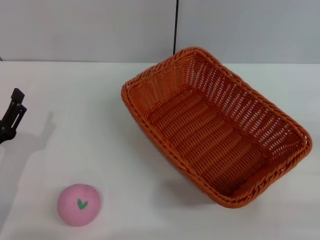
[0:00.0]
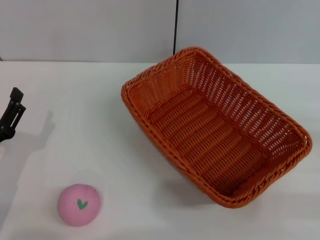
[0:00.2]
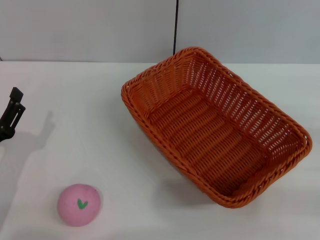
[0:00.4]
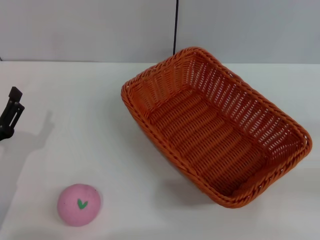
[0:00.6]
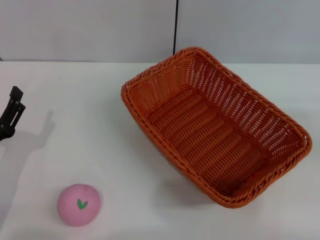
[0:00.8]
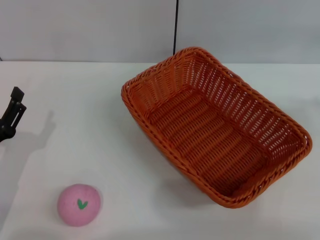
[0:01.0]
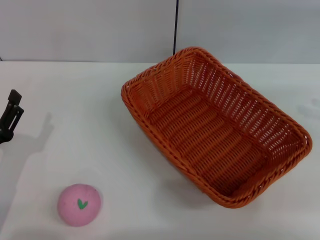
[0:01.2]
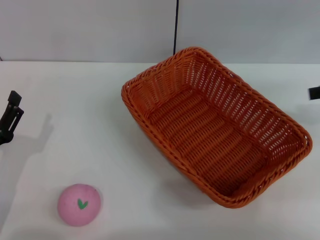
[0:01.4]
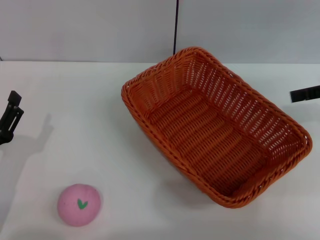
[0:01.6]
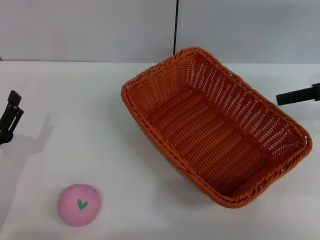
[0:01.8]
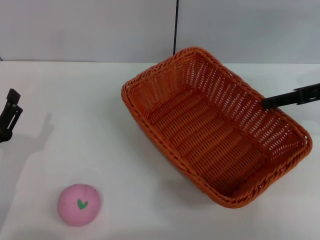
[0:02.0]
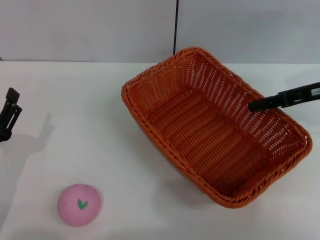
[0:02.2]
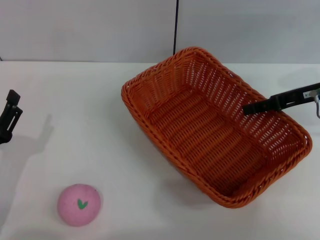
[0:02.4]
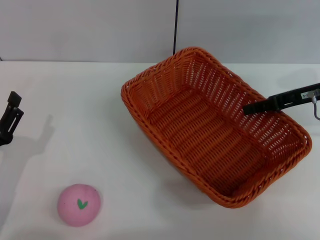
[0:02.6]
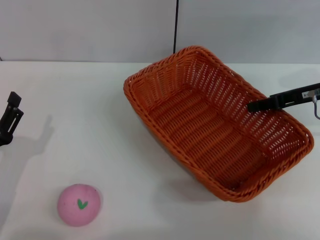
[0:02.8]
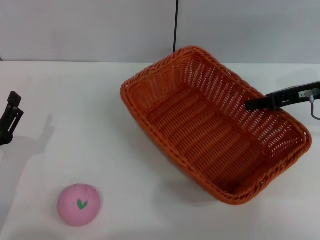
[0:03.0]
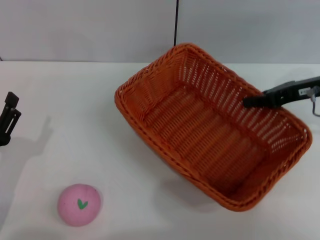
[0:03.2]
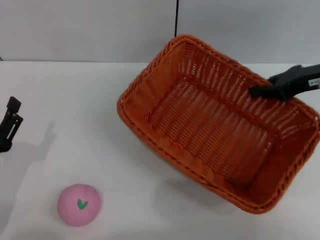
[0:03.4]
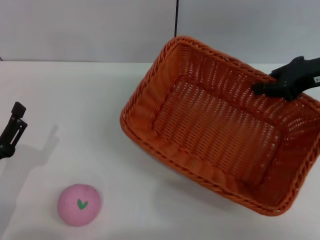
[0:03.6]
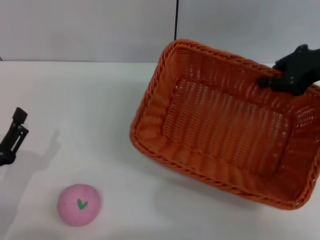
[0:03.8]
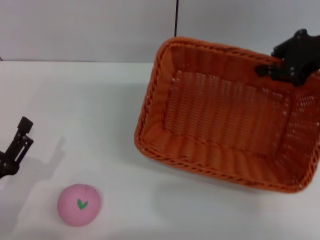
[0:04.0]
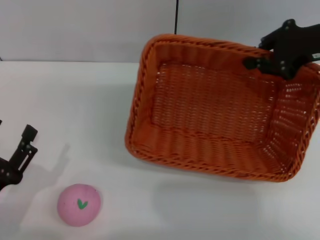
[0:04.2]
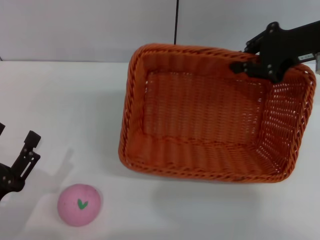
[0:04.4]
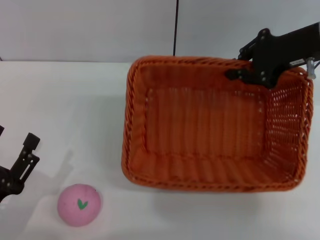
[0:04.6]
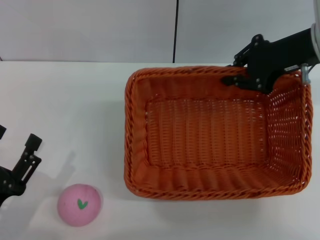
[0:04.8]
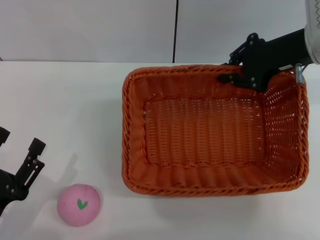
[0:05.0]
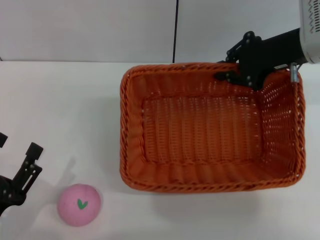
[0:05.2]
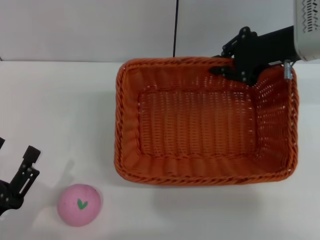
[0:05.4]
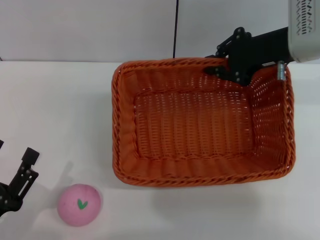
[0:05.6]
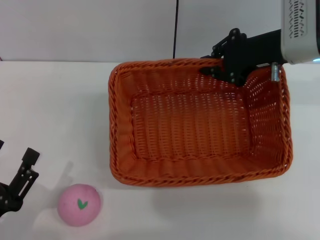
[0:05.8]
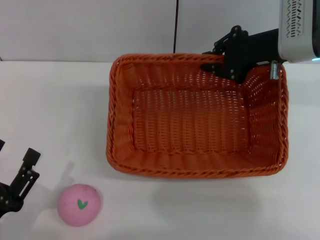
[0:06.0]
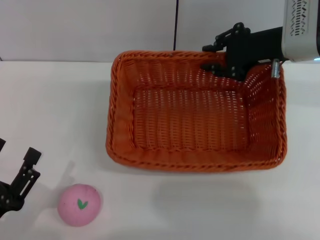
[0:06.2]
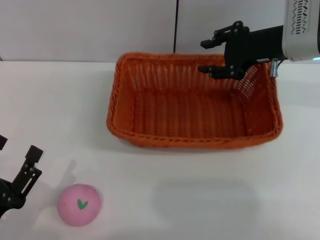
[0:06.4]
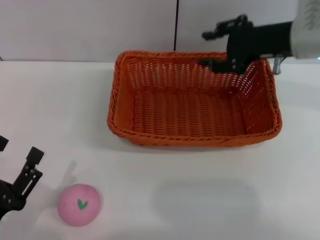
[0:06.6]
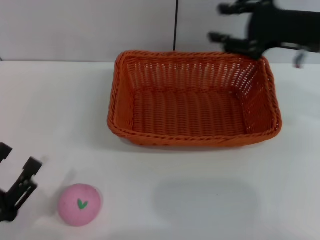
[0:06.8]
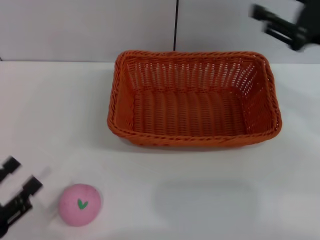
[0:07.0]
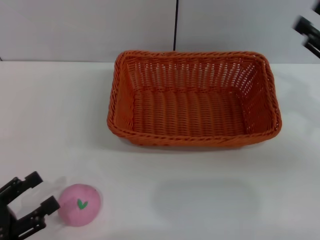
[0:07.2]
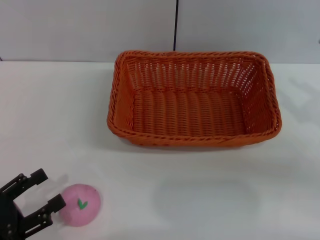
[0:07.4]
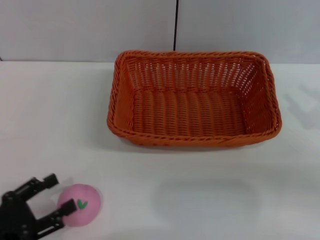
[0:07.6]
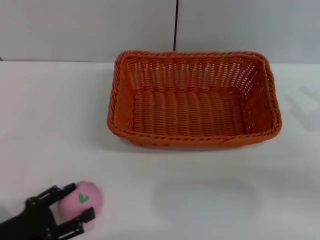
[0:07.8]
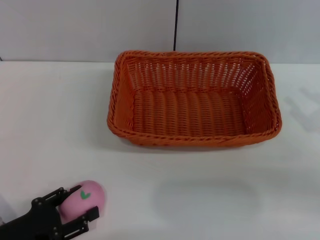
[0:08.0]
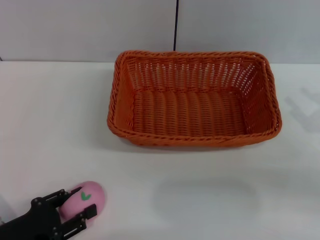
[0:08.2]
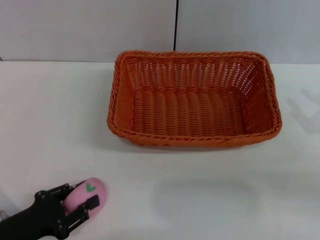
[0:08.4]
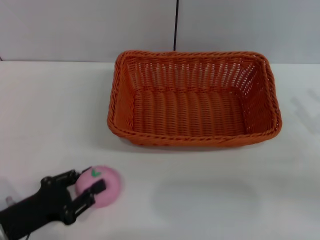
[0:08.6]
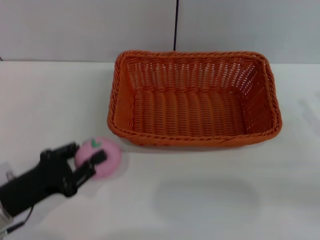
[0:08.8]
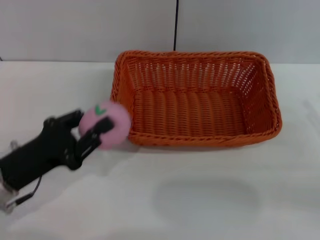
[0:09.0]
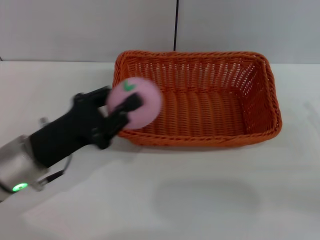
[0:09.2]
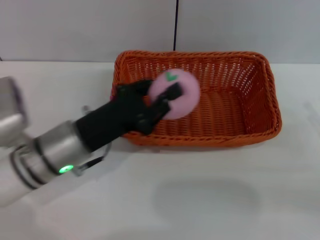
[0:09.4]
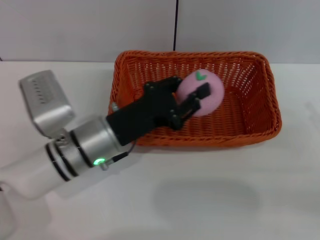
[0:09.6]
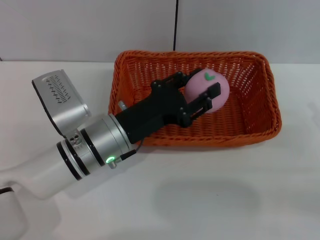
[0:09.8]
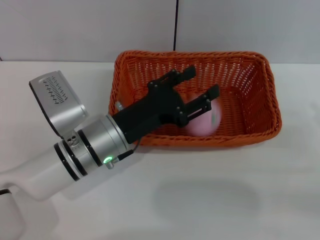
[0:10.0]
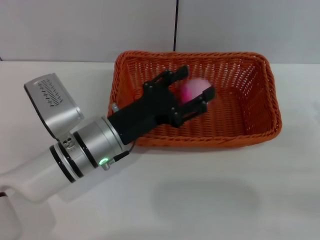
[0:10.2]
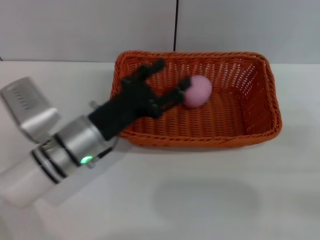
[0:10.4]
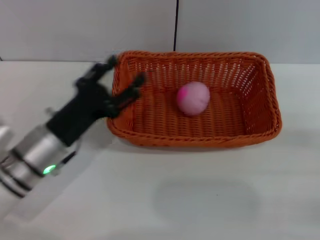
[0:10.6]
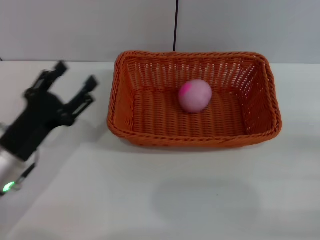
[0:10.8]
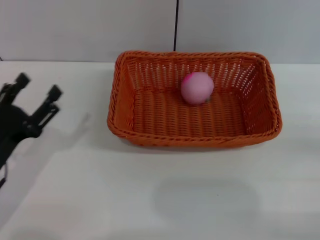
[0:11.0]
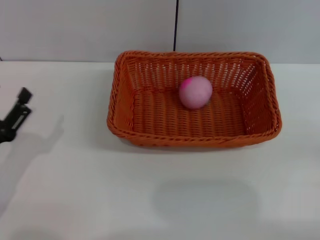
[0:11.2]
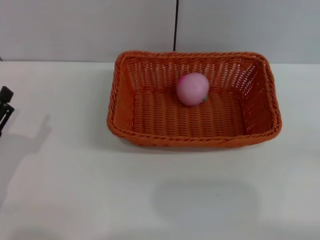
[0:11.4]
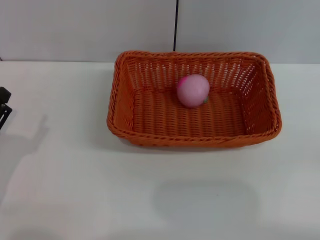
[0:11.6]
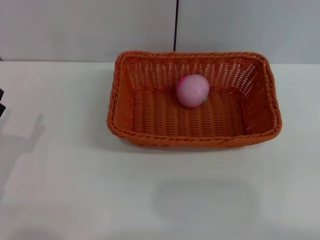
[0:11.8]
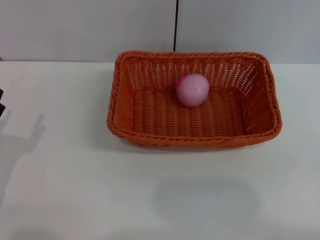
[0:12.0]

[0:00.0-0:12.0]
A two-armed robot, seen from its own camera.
Step, 0:00.0 to 0:03.6: Pick up the light basket with the right gripper.
Step, 0:04.0 to 0:06.6: Place the light basket in the center of view with the right gripper.
Step, 0:06.8 to 0:09.0: Pick up the peach with the left gripper.
Step, 0:09.2 to 0:10.2: Place the peach into the basket with the left gripper.
0:00.0 to 0:01.6: The right gripper goes some 20 cm forward and upward.
0:01.6 to 0:03.0: The right gripper heads to the left and downward, covering approximately 10 cm, and closes its fingers.
0:03.0 to 0:04.4: The left gripper heads backward, covering some 5 cm. The right gripper travels upward by roughly 10 cm.
0:04.4 to 0:06.0: The right gripper ends up approximately 5 cm from where it was.
0:06.0 to 0:07.6: The right gripper moves backward, to the right and downward, some 25 cm, and opens up. The left gripper shifts by approximately 5 cm.
0:07.6 to 0:09.0: The left gripper is displaced forward and to the right by some 10 cm, and closes up.
0:09.0 to 0:10.4: The left gripper is displaced to the right and forward by approximately 15 cm, and opens up.
0:10.4 to 0:12.0: The right gripper travels backward by roughly 5 cm, and opens its fingers. The left gripper is displaced to the left and backward by about 20 cm.

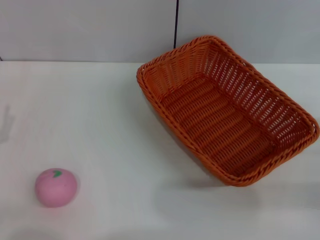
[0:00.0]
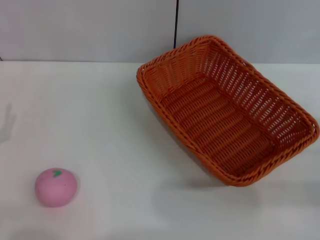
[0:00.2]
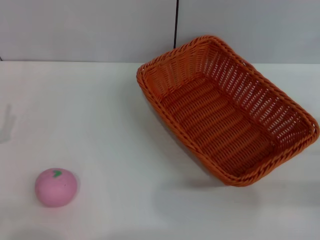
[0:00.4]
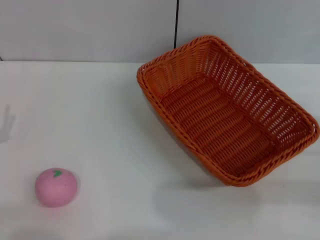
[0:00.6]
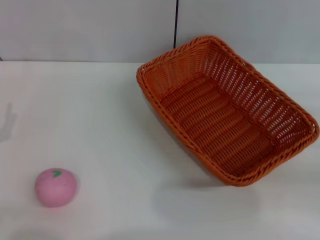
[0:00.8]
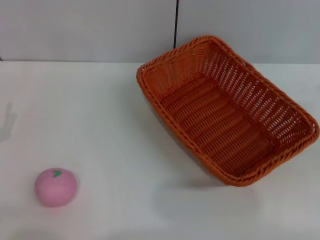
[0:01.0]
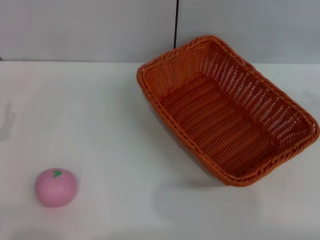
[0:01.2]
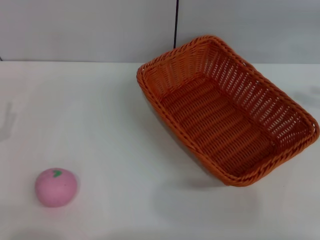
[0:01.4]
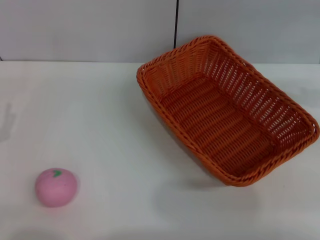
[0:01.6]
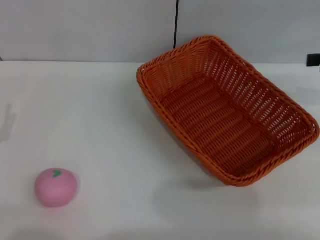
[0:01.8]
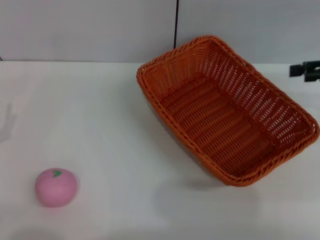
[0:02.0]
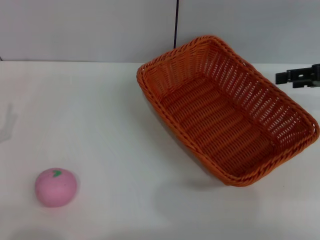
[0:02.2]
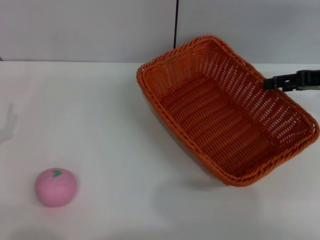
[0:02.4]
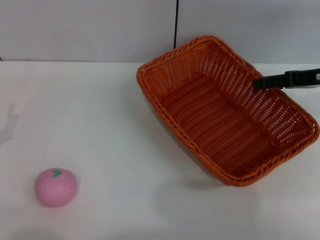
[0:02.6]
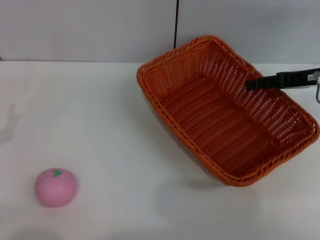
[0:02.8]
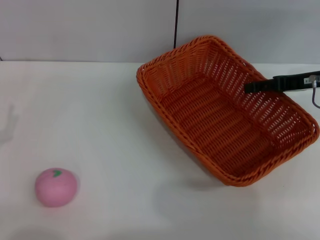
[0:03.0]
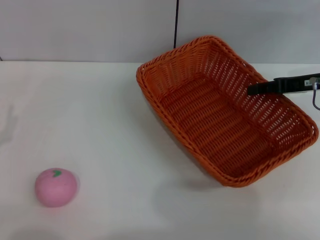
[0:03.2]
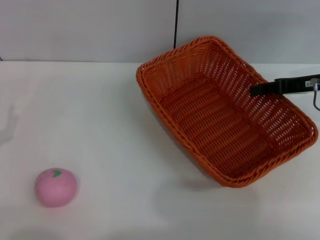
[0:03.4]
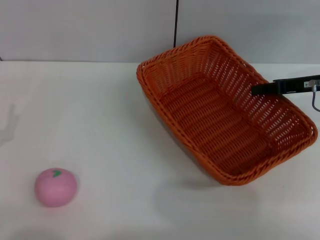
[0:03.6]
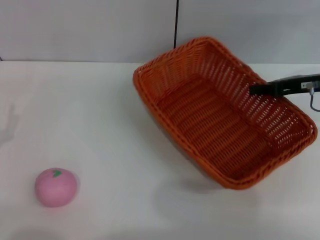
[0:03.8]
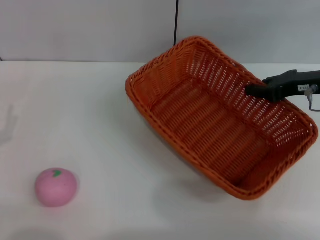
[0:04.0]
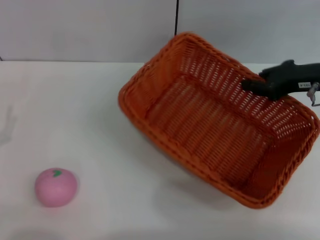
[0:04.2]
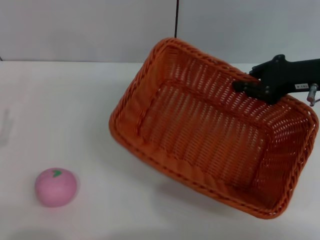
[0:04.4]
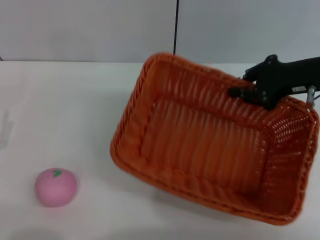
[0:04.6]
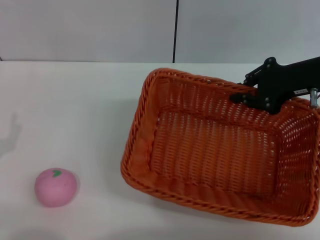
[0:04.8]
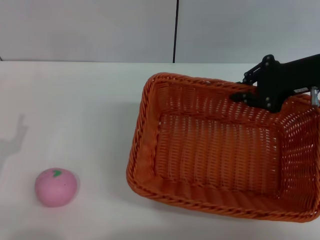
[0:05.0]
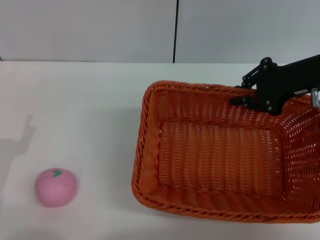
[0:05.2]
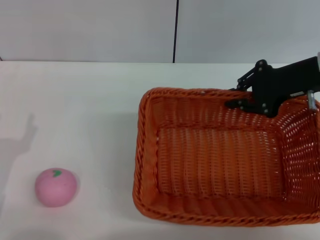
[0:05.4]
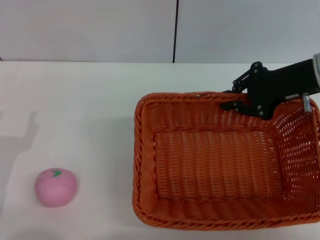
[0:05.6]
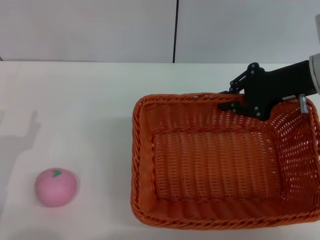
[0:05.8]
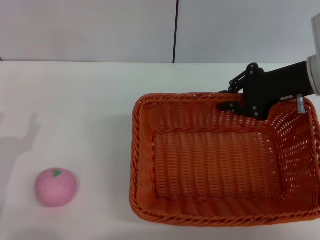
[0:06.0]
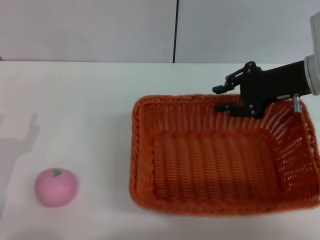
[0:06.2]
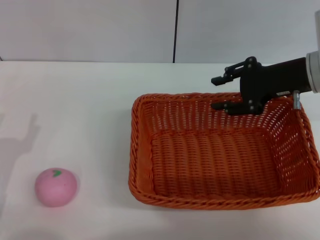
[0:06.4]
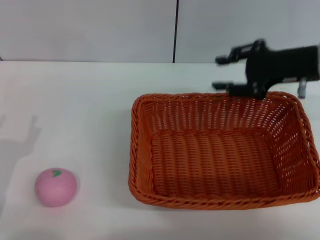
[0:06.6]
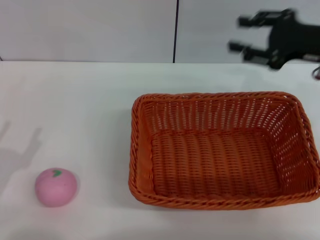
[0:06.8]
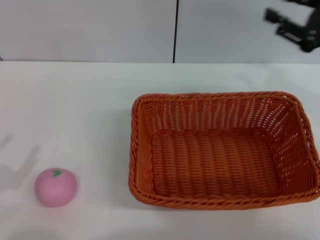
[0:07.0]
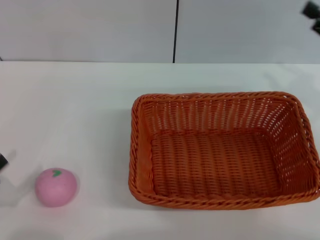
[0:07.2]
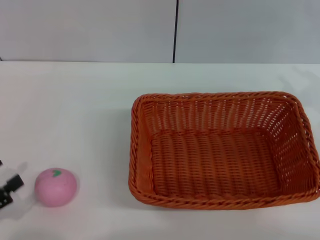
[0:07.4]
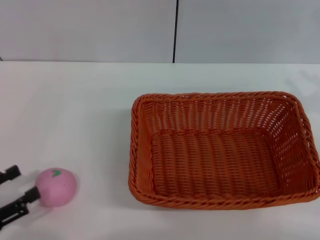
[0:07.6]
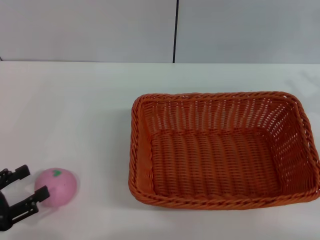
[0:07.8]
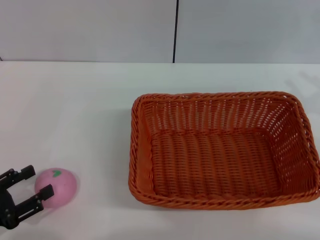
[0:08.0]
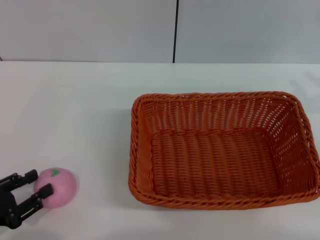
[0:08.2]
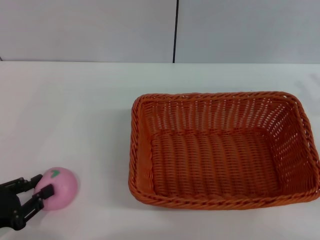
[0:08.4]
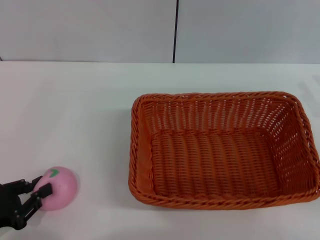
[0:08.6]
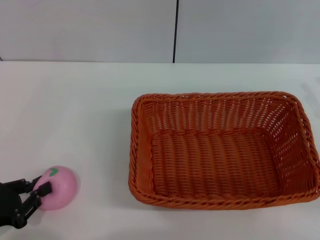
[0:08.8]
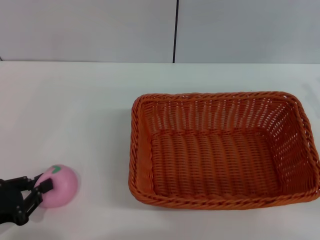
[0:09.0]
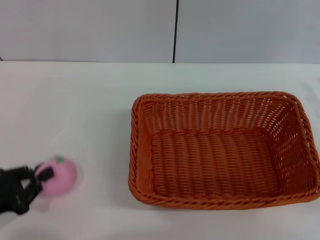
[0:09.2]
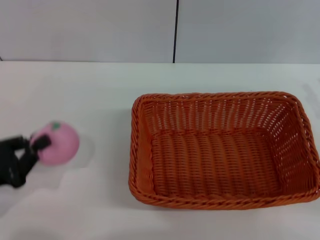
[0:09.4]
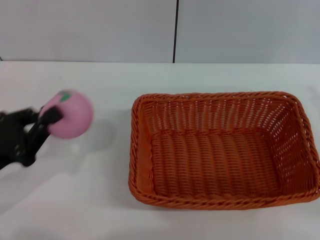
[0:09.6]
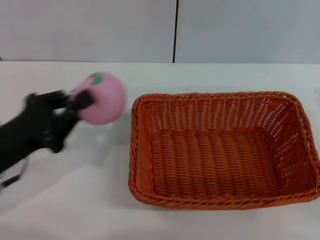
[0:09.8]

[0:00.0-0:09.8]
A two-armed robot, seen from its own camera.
Step, 0:00.0 to 0:04.4: Pick up the light basket with the right gripper.
Step, 0:04.6 to 0:06.6: Place the light basket in the center of view with the right gripper.
Step, 0:06.8 to 0:09.6: Pick up the peach with the left gripper.
0:01.4 to 0:02.8: The right gripper goes about 15 cm to the left, forward and downward.
0:02.8 to 0:04.2: The right gripper closes its fingers.
0:05.6 to 0:07.0: The right gripper goes approximately 5 cm to the right, and opens its fingers. Meanwhile the left gripper heads to the left, covering about 5 cm.
0:07.0 to 0:08.4: The right gripper travels backward and downward by some 10 cm.
0:08.4 to 0:09.8: The left gripper goes some 10 cm forward, to the right and upward, and closes.
